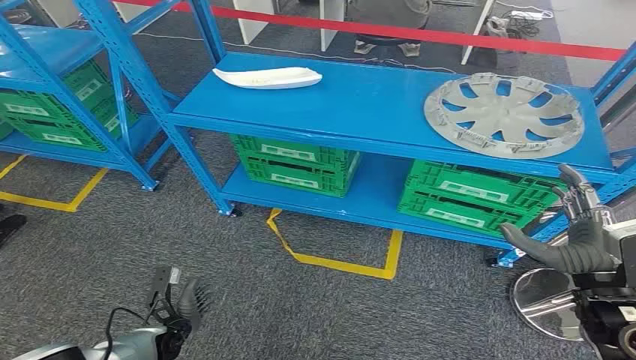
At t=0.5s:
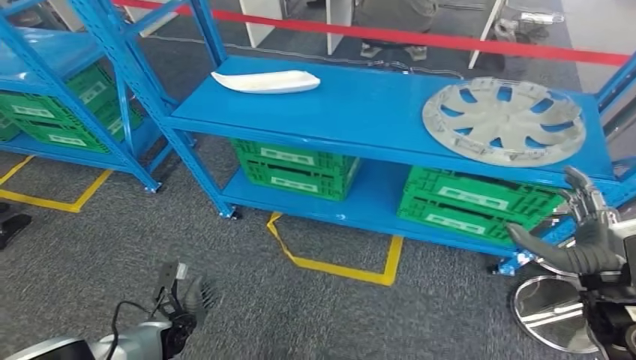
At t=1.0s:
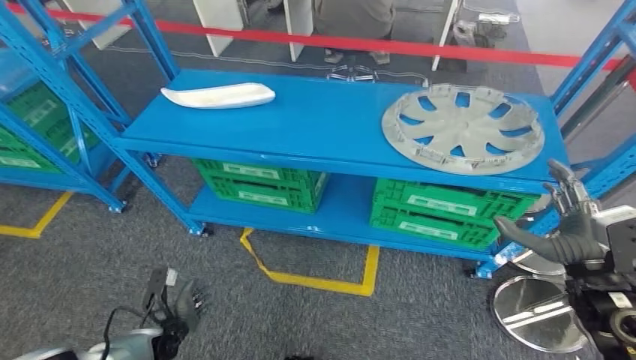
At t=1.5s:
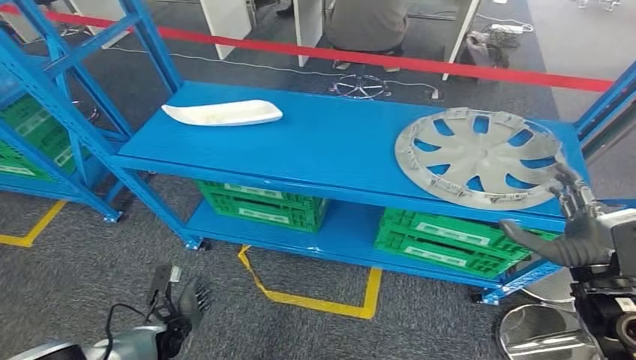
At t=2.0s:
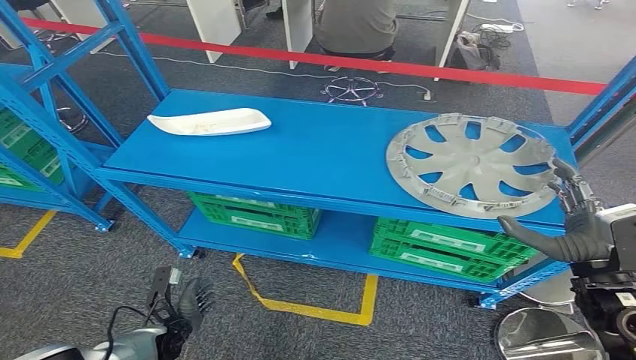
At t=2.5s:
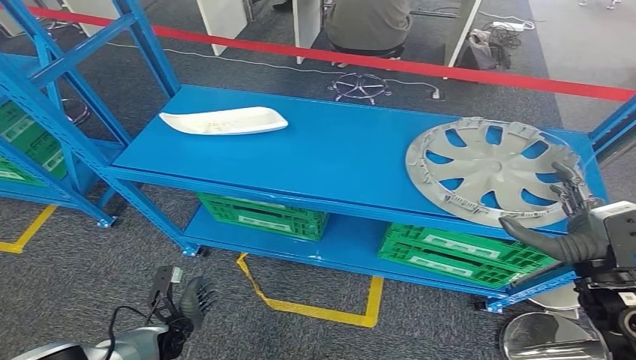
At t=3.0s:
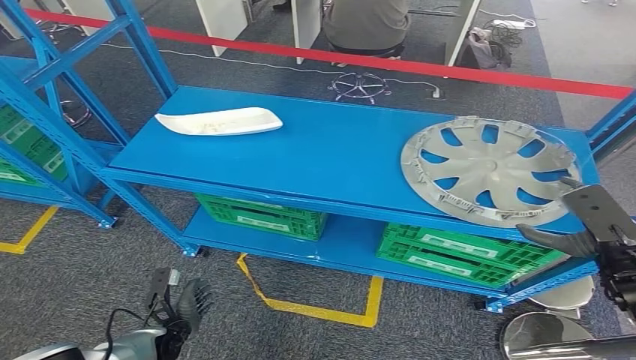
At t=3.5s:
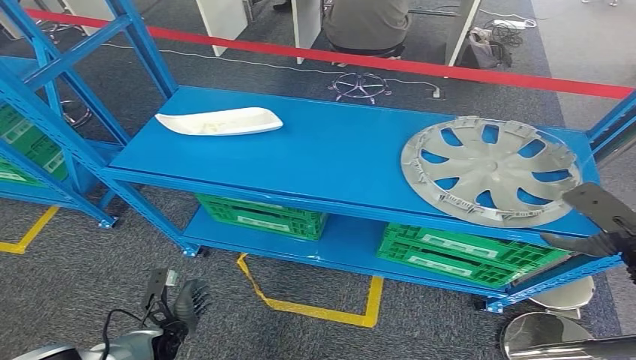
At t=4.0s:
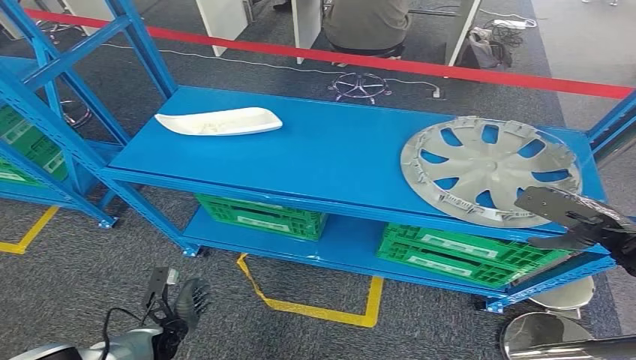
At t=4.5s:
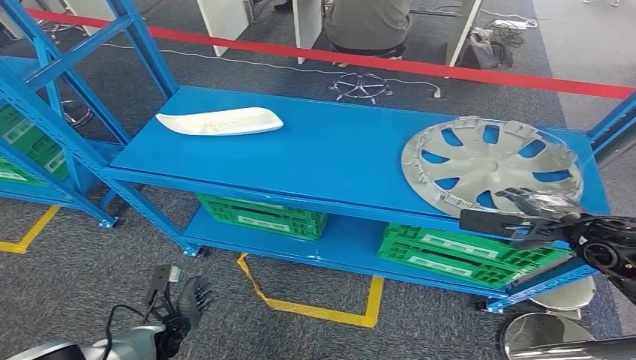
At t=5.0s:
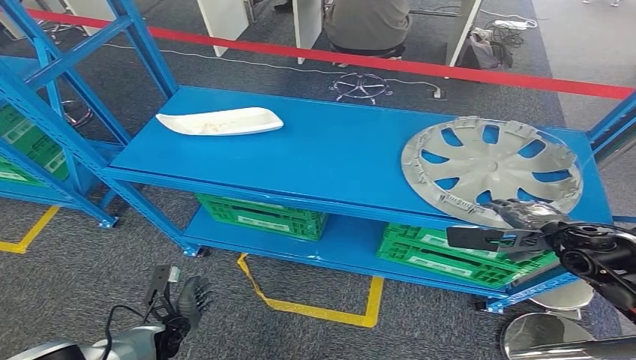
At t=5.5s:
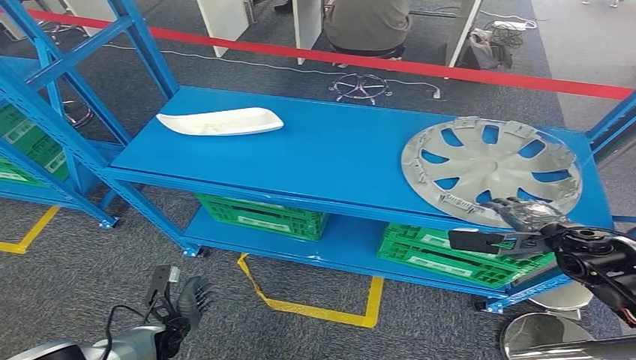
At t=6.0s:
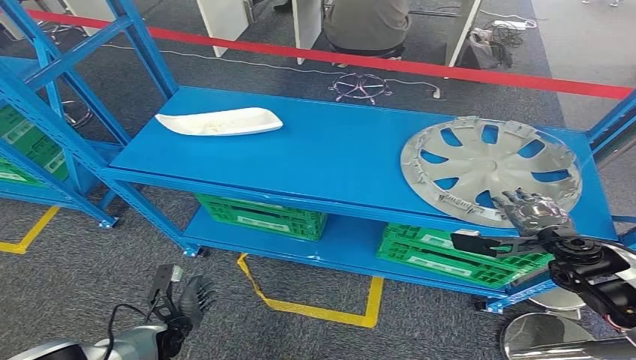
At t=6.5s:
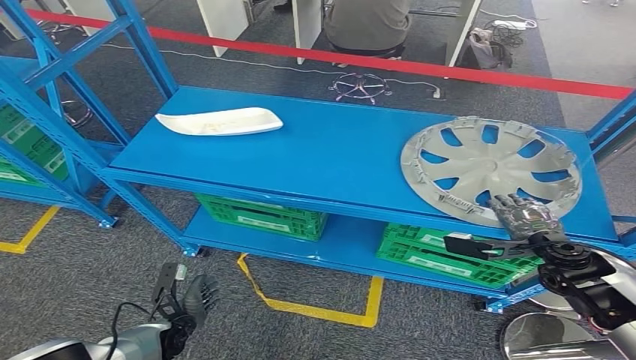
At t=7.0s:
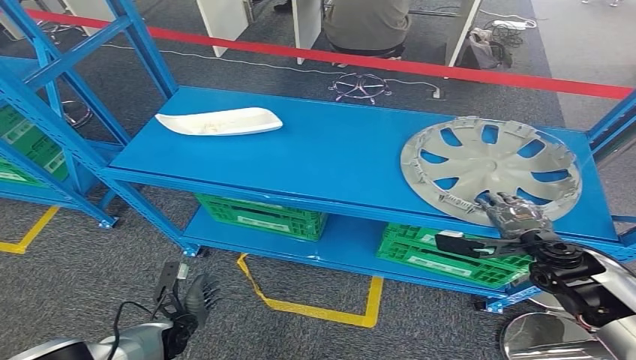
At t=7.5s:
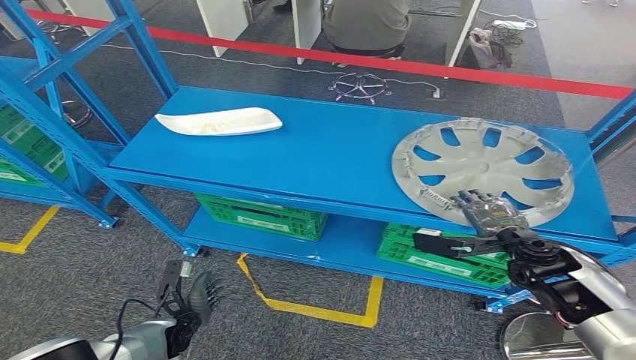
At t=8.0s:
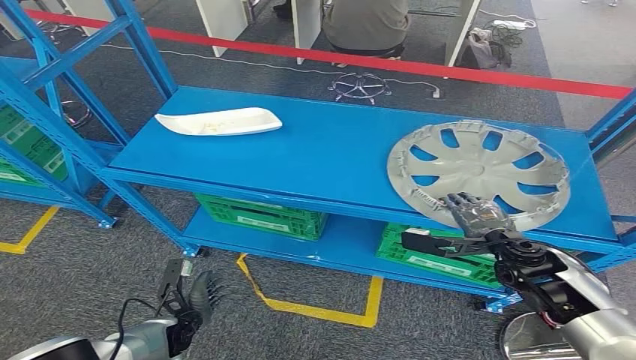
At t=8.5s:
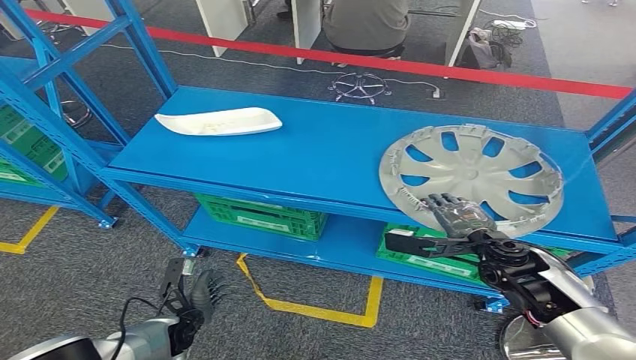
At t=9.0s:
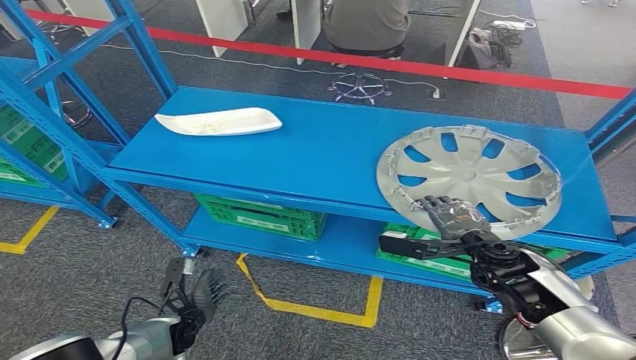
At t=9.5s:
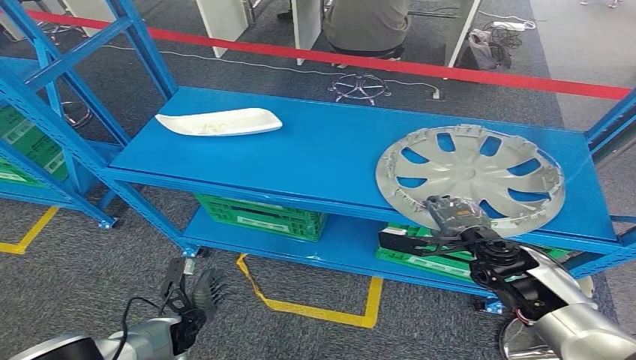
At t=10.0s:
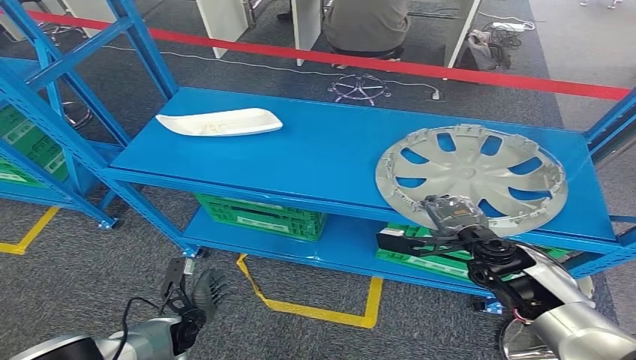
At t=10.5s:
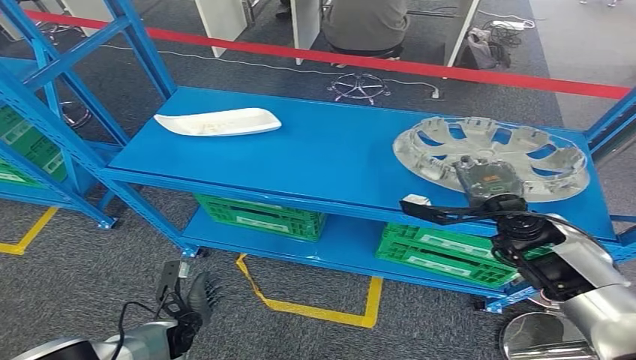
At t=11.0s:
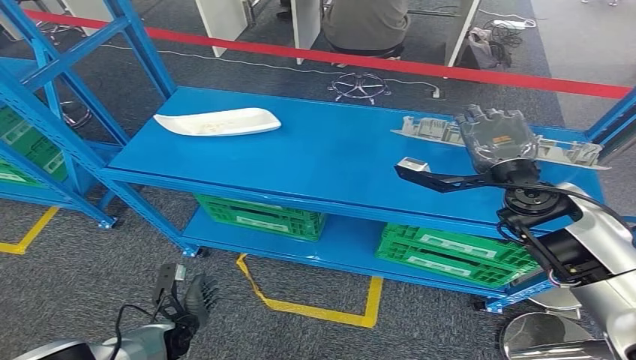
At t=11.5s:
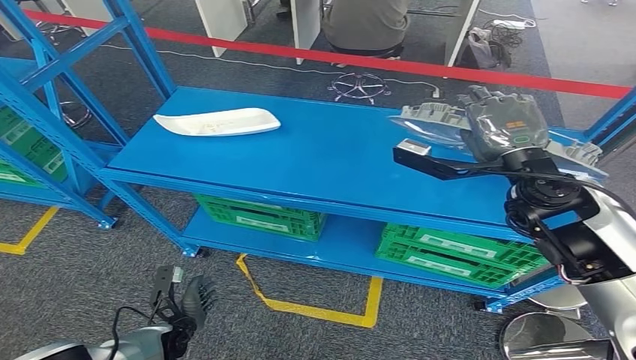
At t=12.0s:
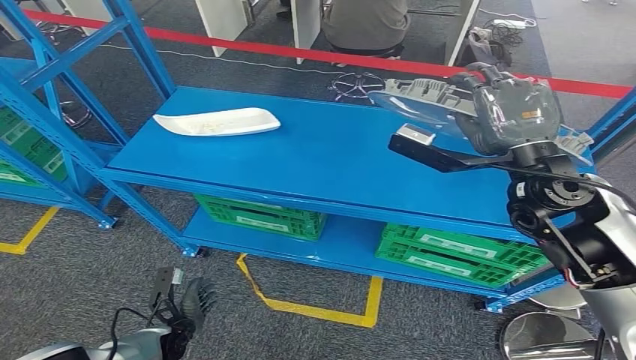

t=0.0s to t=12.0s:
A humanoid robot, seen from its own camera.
Step, t=0.0s to t=11.5s: Pick up the small component from the shelf.
t=4.0s to t=6.0s: The right hand goes roughly 5 cm downward.
t=6.0s to t=8.0s: The right hand goes about 10 cm to the left.
t=8.0s to t=10.0s: The hands move only a little.

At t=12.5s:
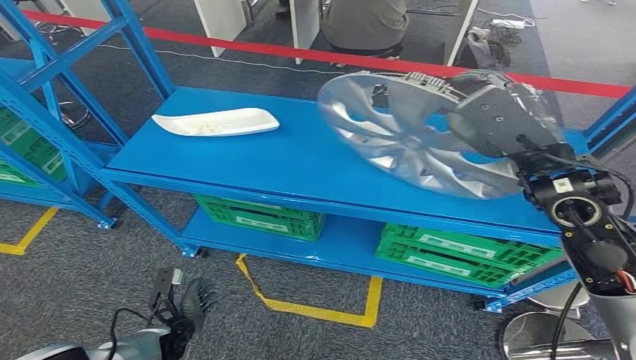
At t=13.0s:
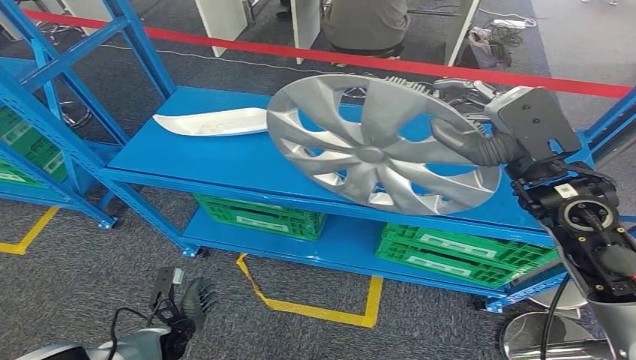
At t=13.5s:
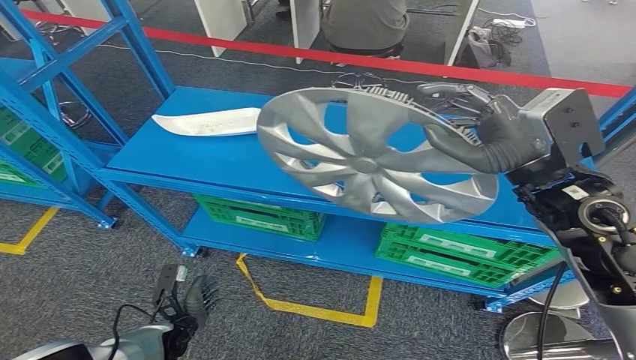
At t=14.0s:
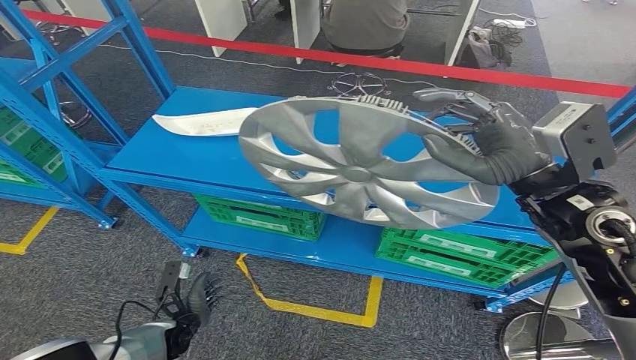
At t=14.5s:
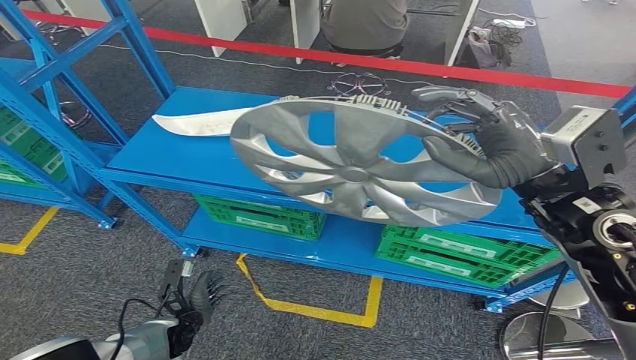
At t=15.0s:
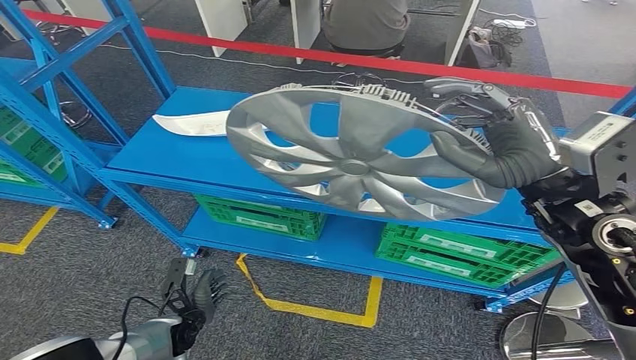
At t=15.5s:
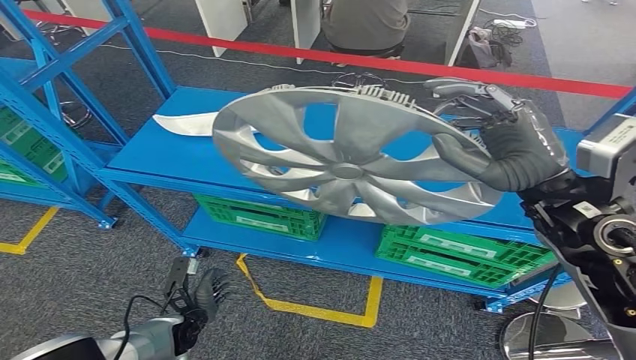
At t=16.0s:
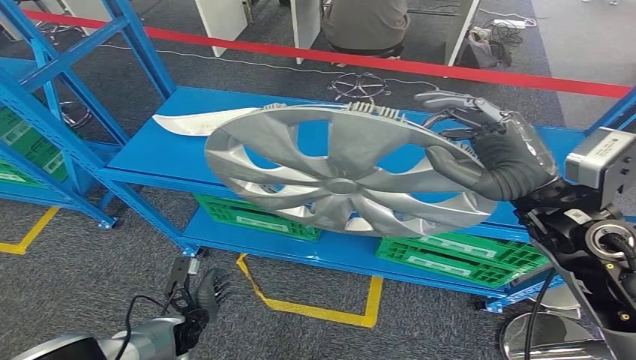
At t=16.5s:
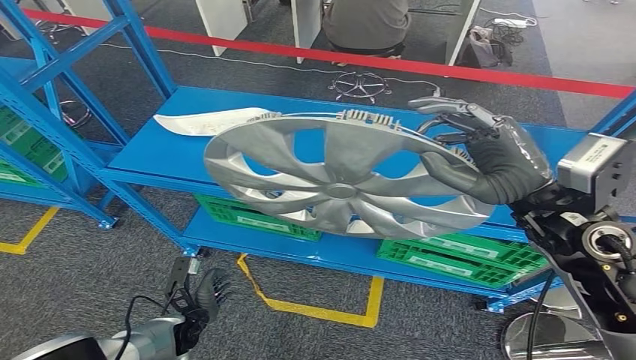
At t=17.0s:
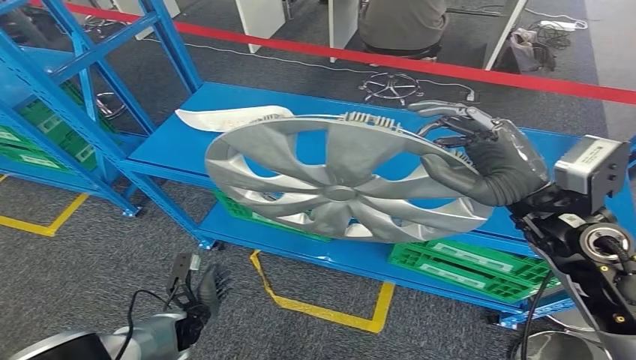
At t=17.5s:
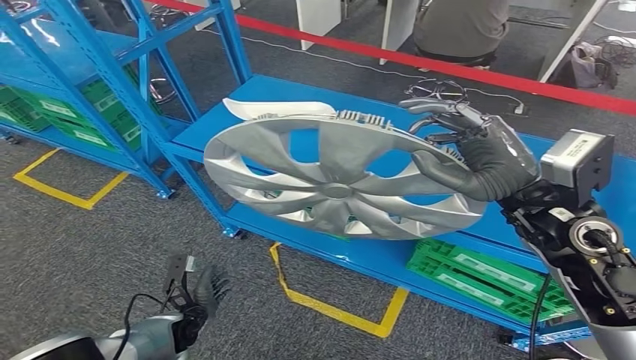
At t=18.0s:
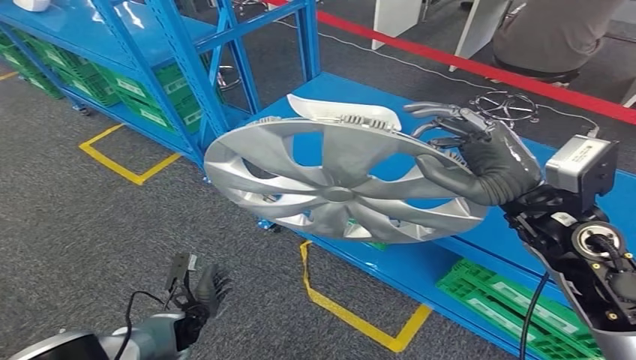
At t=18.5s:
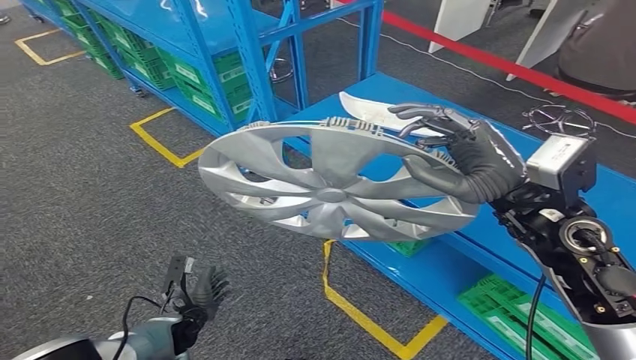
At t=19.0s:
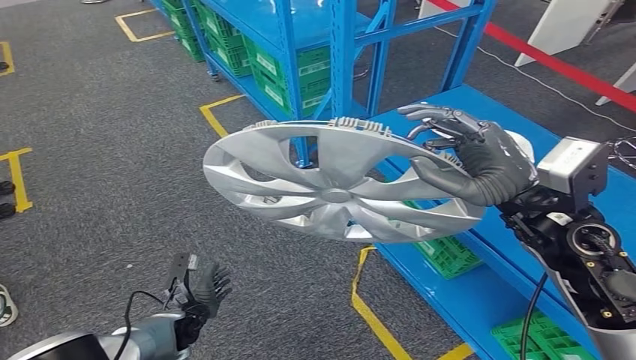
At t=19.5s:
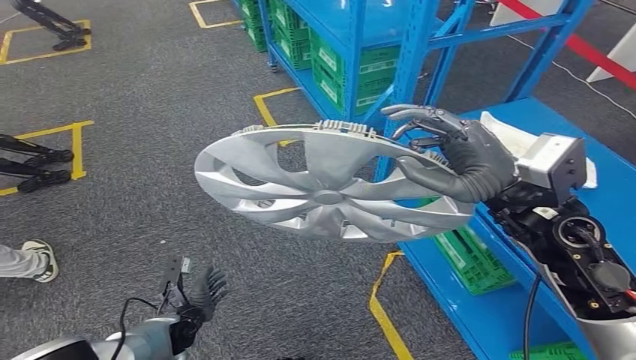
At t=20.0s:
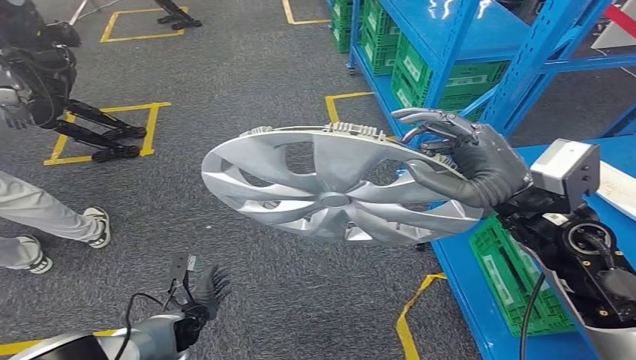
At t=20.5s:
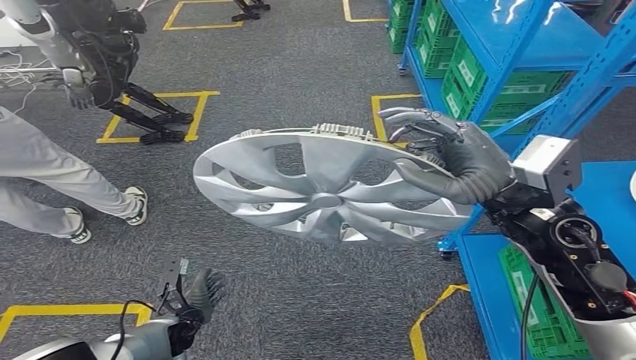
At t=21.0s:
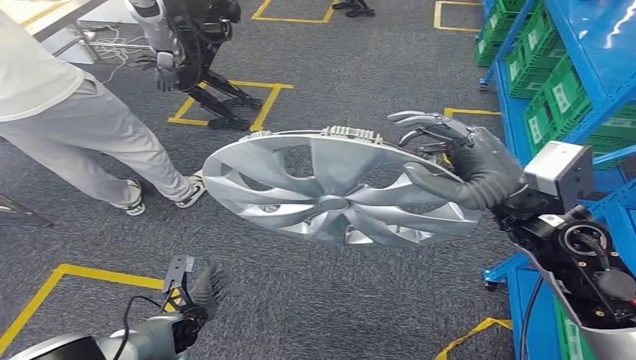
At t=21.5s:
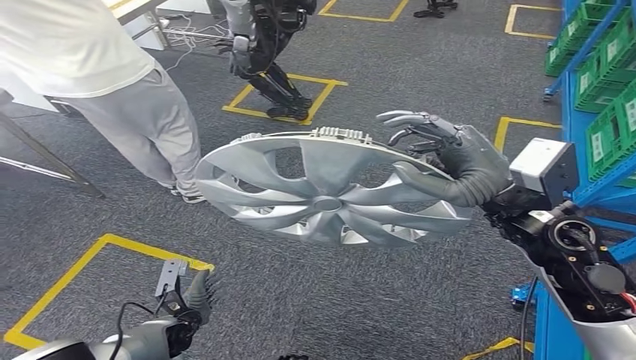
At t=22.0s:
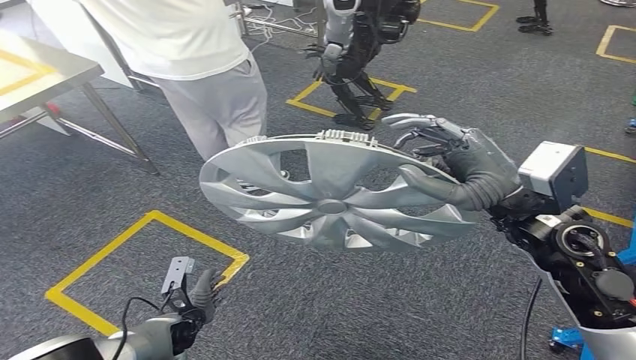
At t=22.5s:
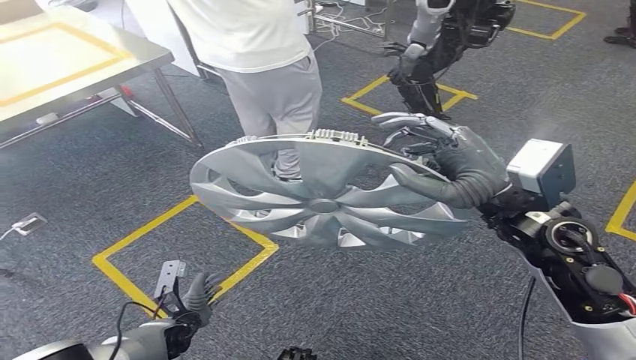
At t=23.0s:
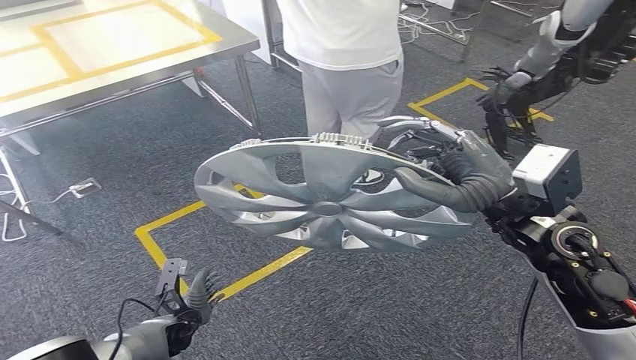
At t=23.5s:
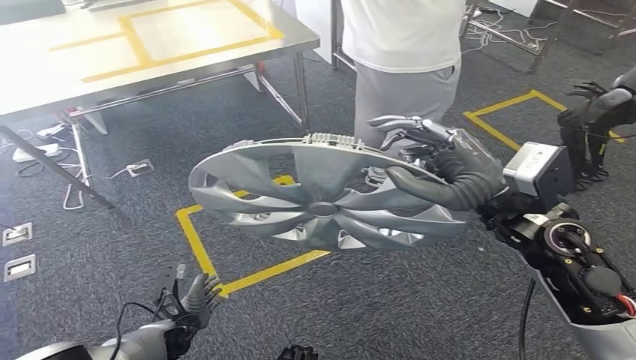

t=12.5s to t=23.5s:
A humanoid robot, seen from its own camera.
t=14.5s to t=16.0s: The hands stay close to where they were, moving slightly.
